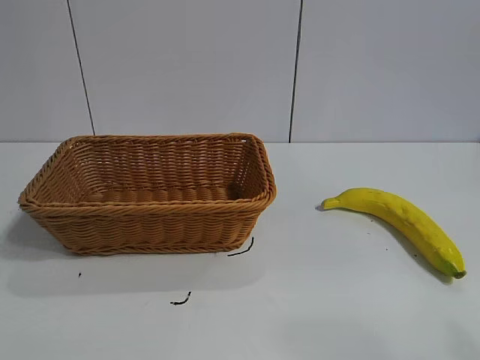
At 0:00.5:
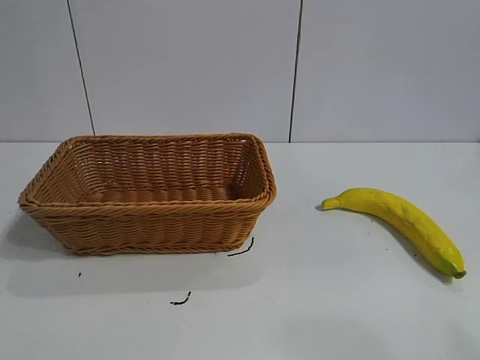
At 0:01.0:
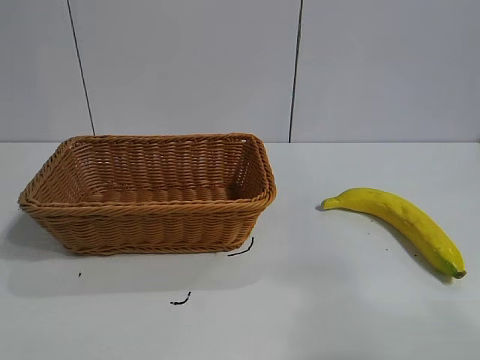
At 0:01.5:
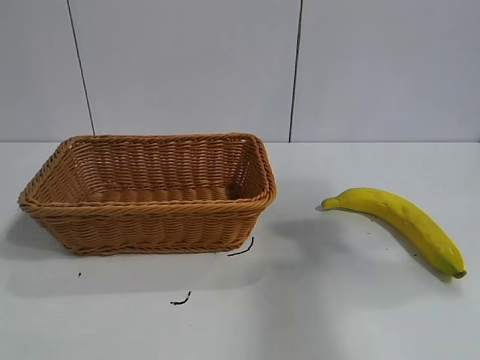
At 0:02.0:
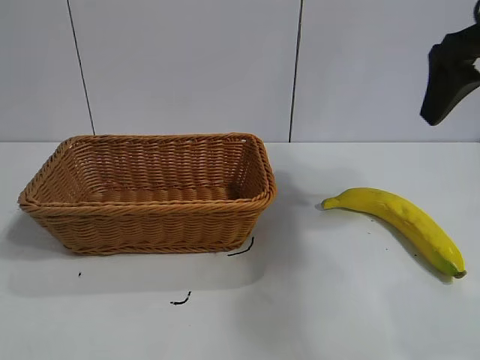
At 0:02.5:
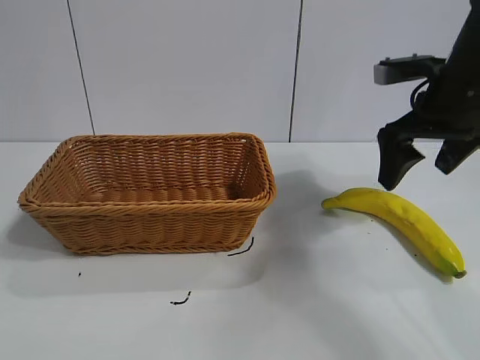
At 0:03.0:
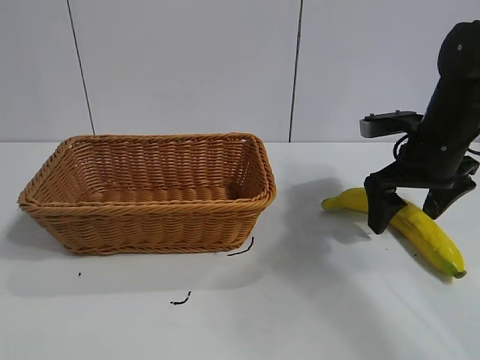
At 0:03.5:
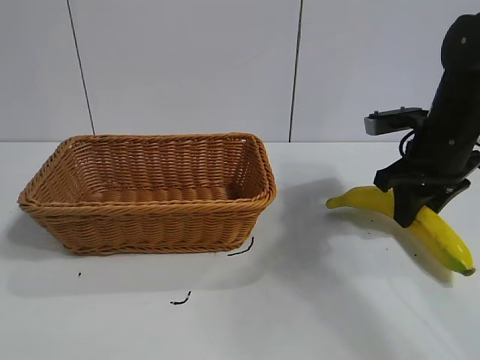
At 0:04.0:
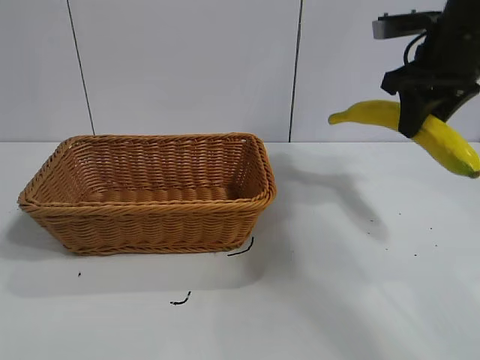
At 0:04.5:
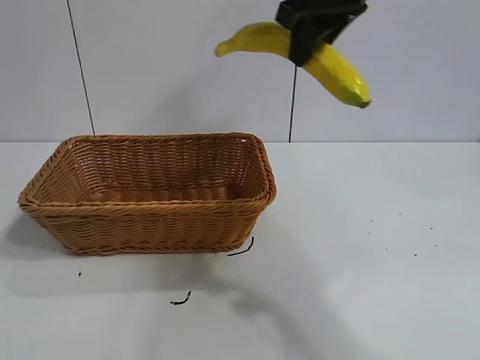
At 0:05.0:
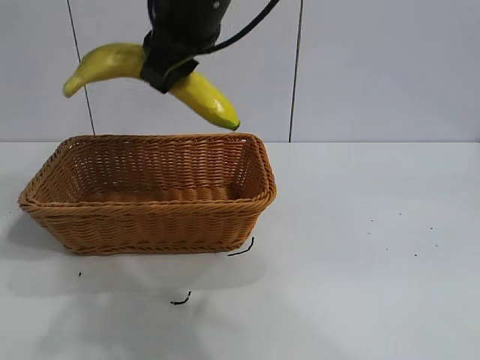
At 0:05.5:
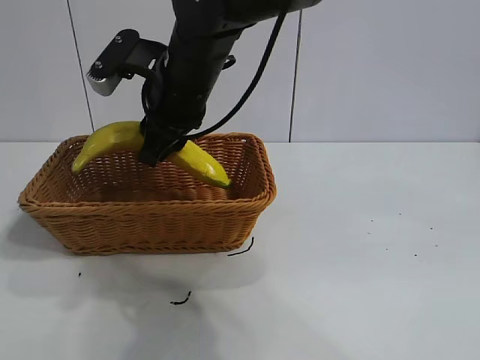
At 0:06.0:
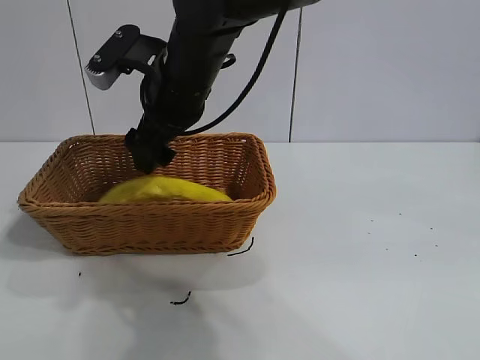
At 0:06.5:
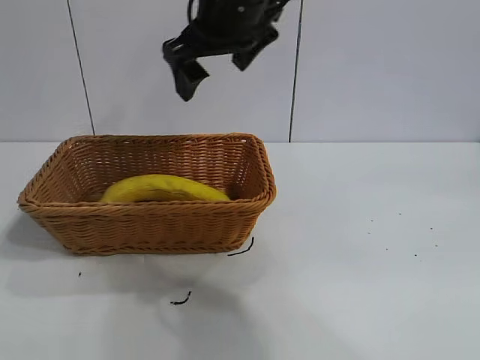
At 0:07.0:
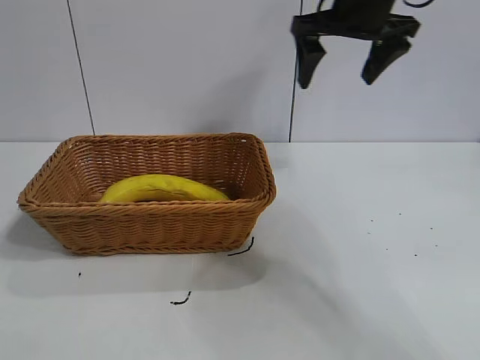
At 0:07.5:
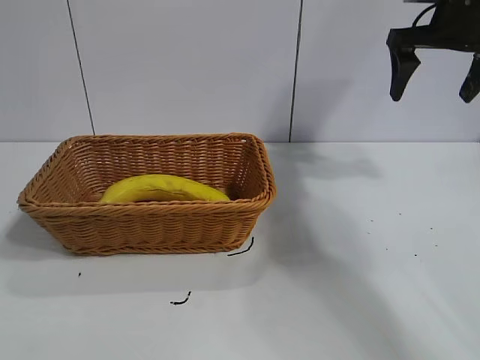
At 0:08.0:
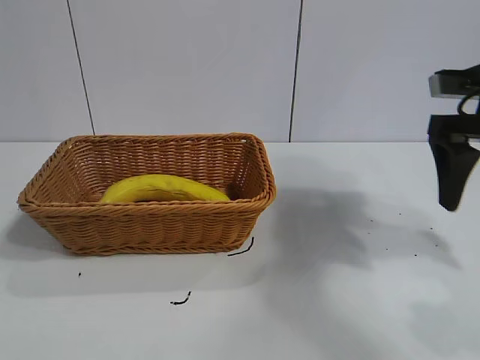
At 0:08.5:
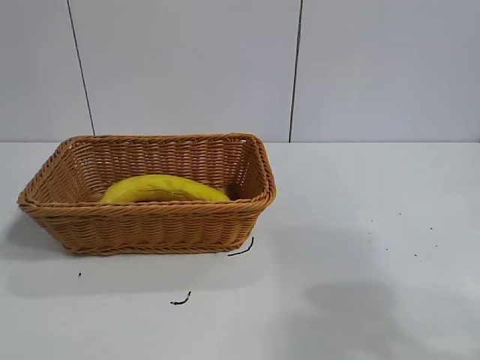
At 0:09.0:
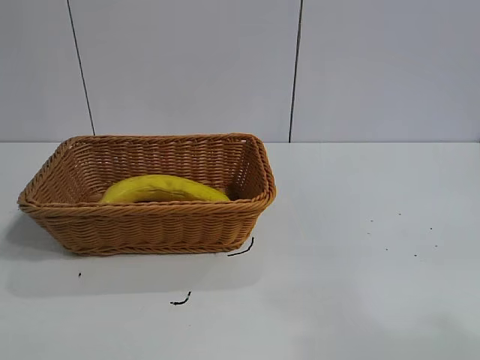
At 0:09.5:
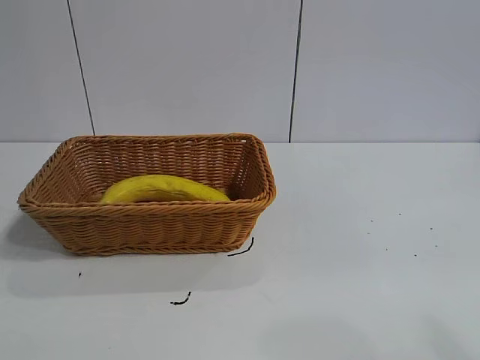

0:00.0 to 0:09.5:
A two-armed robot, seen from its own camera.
Task of the whole recording: pick up the banana and put it into the basket.
Step, 0:02.0 to 0:03.5: Grasp the banana with right gripper.
Step, 0:04.0 to 0:05.5: Place the banana in the basket with right gripper.
